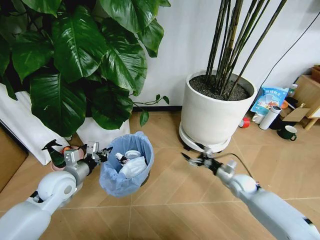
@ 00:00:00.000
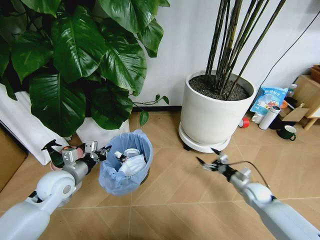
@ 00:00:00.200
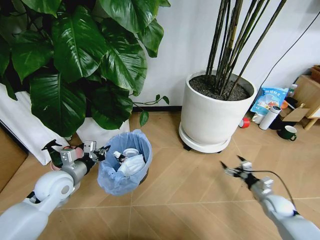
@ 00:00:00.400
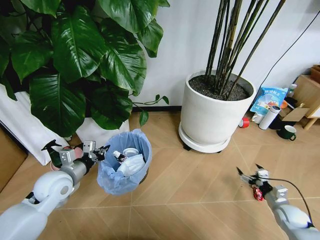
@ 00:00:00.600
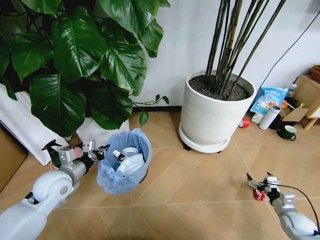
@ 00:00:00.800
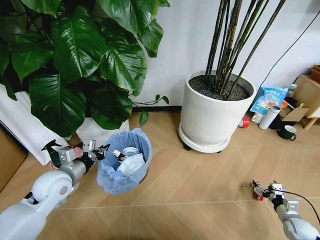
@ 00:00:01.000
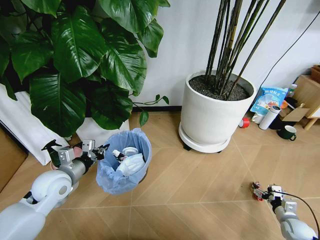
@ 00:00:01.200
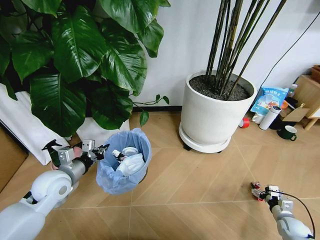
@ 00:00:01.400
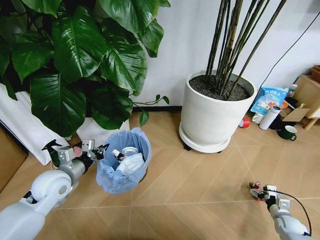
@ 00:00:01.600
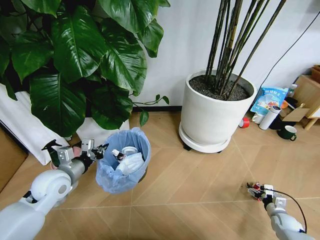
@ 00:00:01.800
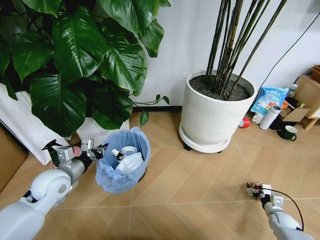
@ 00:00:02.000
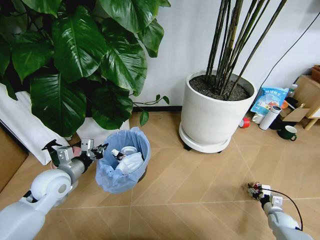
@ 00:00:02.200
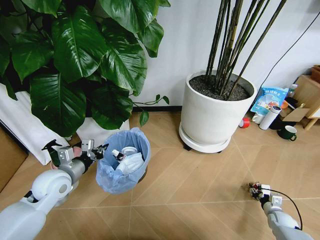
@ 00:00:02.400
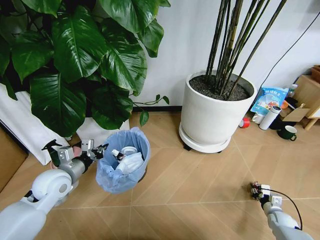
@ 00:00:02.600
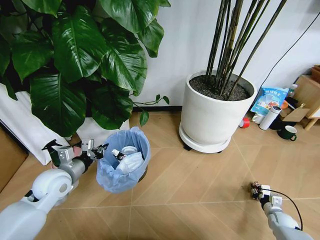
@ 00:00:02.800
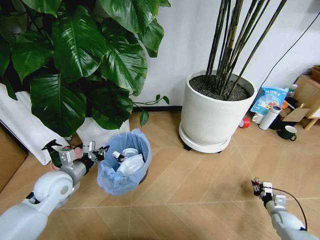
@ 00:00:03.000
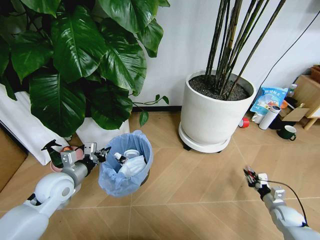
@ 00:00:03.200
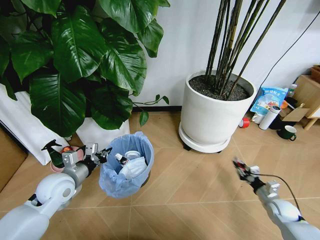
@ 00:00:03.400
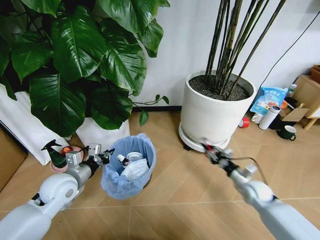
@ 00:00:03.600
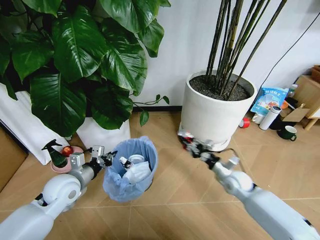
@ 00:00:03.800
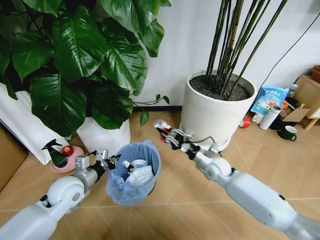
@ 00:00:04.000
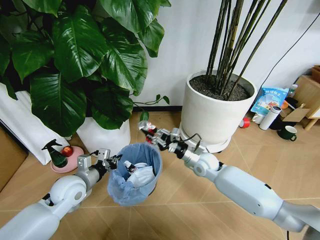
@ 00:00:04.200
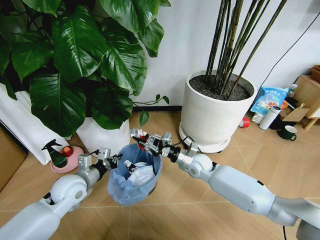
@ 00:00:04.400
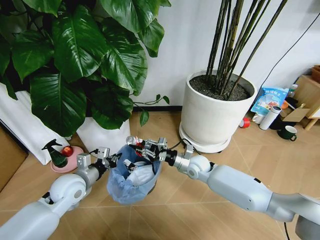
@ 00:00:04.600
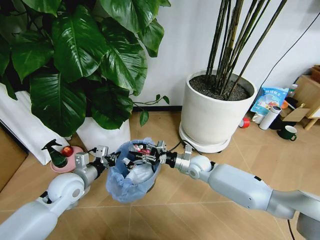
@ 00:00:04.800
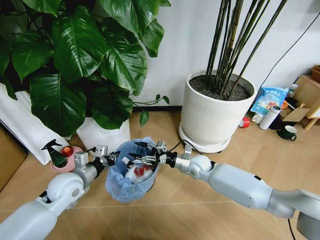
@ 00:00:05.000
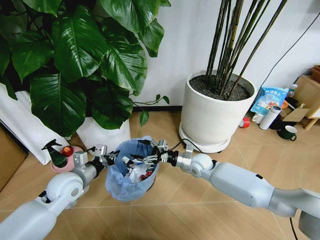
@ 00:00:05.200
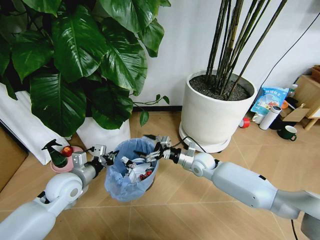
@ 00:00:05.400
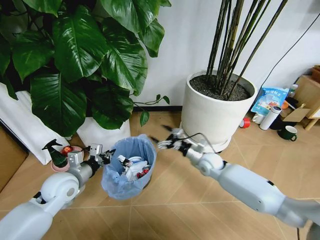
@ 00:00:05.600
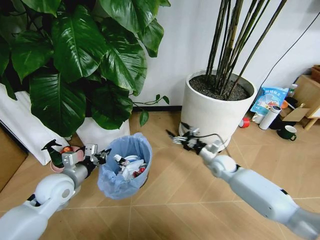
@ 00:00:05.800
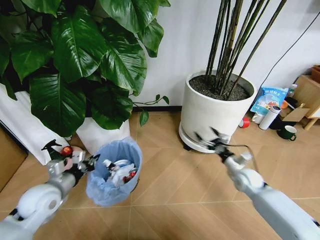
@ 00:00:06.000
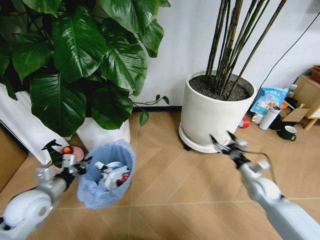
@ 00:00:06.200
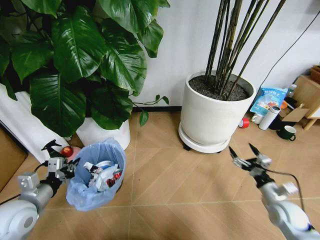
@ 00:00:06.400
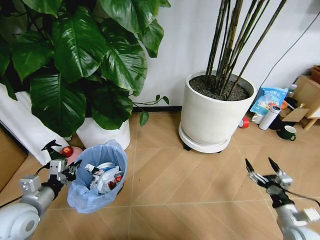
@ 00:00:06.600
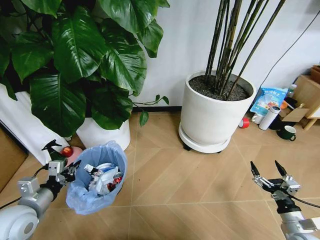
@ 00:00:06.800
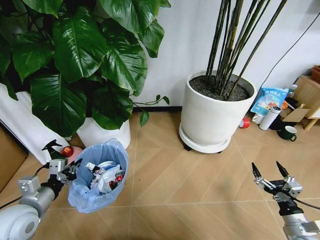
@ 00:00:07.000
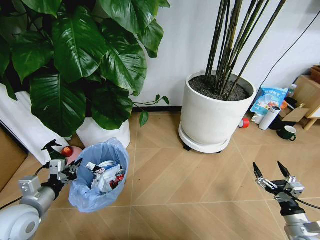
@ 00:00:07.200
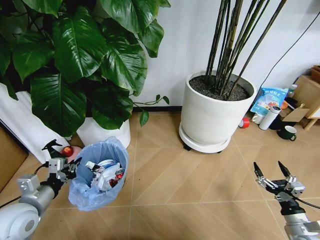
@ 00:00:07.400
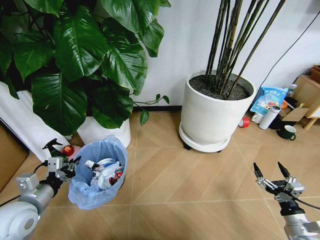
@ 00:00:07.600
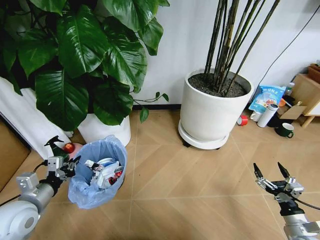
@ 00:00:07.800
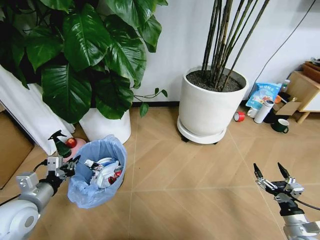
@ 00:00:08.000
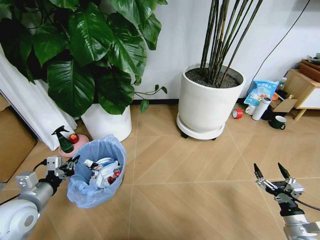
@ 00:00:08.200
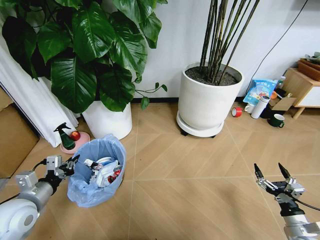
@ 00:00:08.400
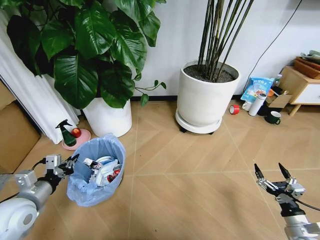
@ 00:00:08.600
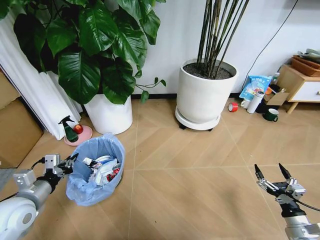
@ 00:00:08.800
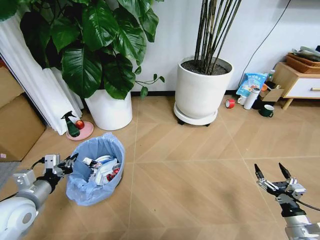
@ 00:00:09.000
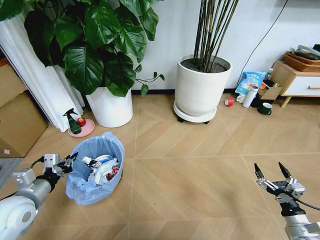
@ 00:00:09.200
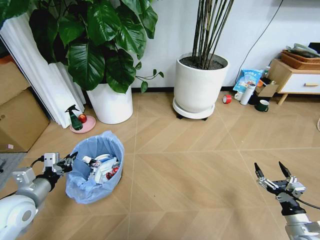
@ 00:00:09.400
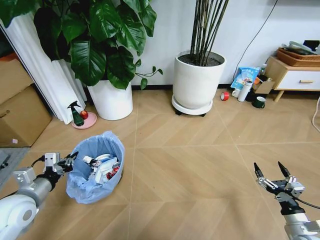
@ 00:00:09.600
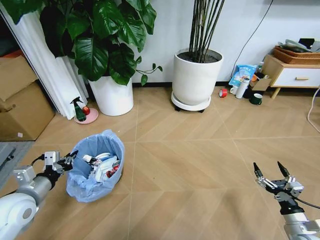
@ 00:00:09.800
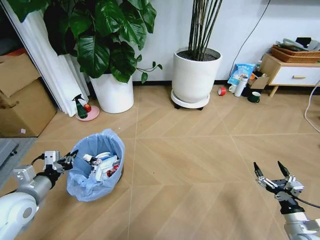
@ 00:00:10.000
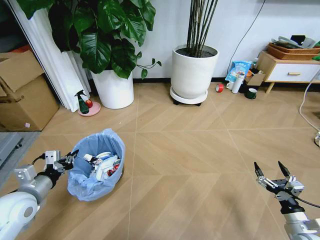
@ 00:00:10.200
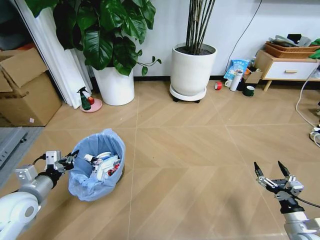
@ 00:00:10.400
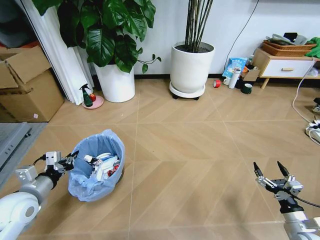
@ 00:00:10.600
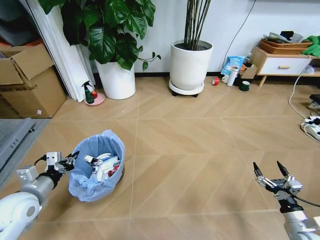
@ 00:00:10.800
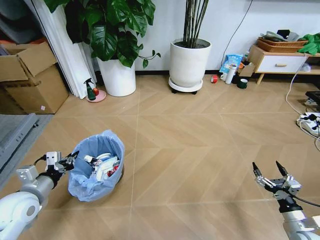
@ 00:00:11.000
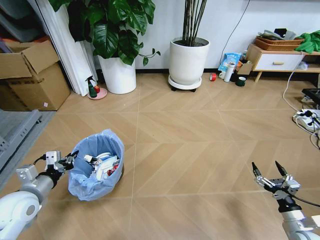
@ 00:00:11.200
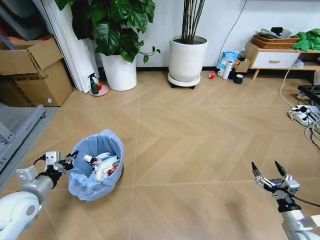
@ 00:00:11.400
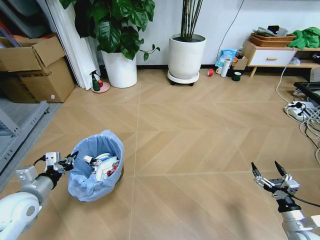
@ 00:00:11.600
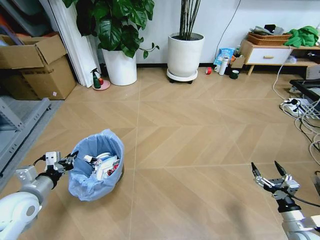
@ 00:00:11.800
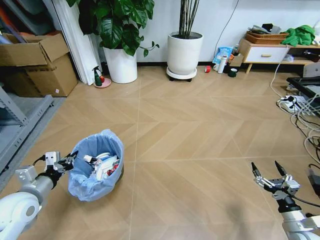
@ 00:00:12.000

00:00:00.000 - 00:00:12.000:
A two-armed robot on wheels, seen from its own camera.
Task of the whole recording: Pick up the trash bin and place the garbage on the floor into it.
00:00:00.000 - 00:00:01.600: The right gripper is displaced to the right, backward and downward by roughly 25 cm.
00:00:01.600 - 00:00:03.000: The right gripper closes its fingers.
00:00:03.000 - 00:00:04.400: The right gripper moves to the left, upward and forward, about 40 cm.
00:00:04.400 - 00:00:06.000: The right gripper is displaced to the right by approximately 20 cm, and opens its fingers, while the left gripper heads to the left, covering about 5 cm.
00:00:06.000 - 00:00:07.600: The right gripper shifts about 25 cm backward and to the right. Meanwhile the left gripper moves backward, roughly 5 cm.

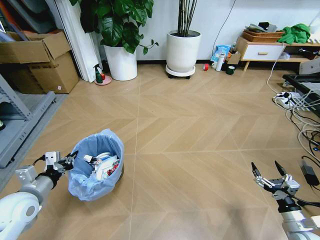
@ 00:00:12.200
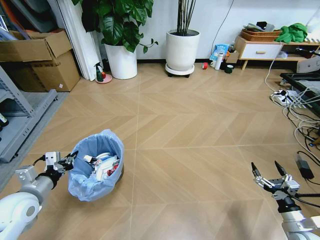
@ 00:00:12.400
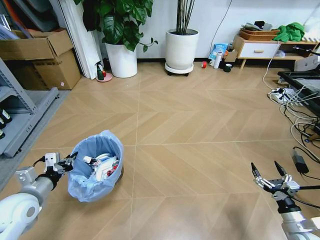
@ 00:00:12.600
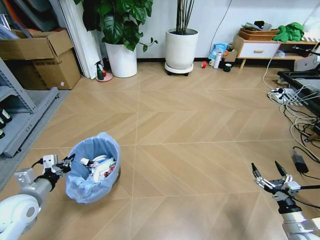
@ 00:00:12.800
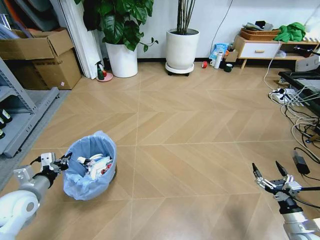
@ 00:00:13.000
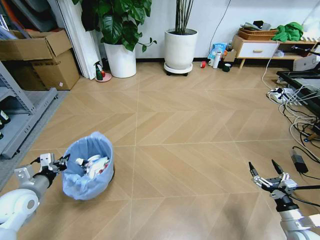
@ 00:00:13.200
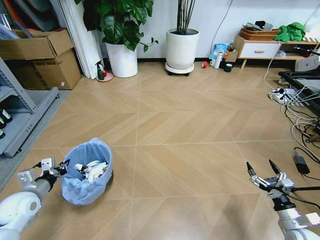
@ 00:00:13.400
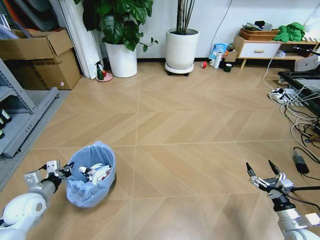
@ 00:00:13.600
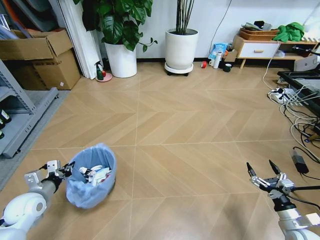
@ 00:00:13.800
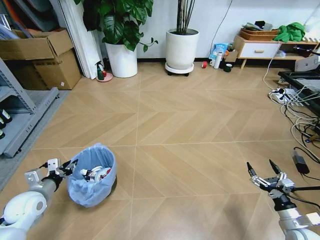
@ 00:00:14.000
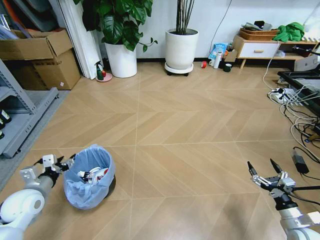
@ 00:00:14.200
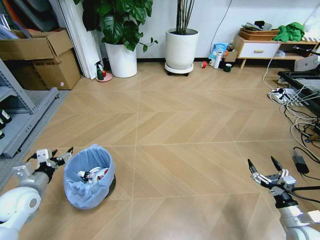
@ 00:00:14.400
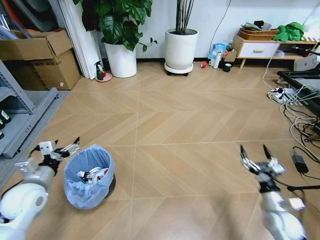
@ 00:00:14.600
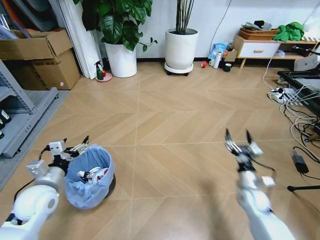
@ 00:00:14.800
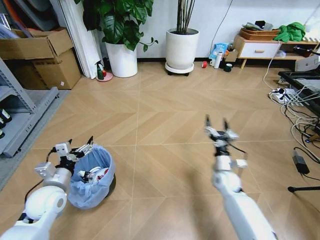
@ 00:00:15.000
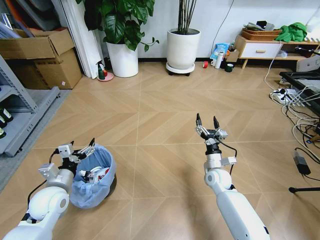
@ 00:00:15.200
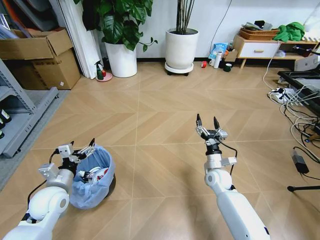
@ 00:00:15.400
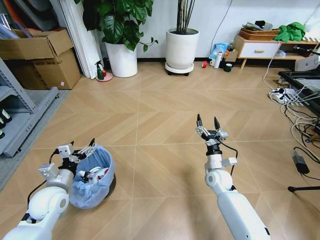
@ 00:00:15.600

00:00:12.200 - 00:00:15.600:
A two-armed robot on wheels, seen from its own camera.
Task of the whole recording: Pick up the trash bin and place the garbage on the floor into it.
00:00:12.200 - 00:00:13.800: The left gripper is displaced downward by about 5 cm.
00:00:13.800 - 00:00:15.600: The right gripper is displaced to the left and forward by roughly 30 cm, while the left gripper travels to the right by roughly 10 cm, and opens up.
